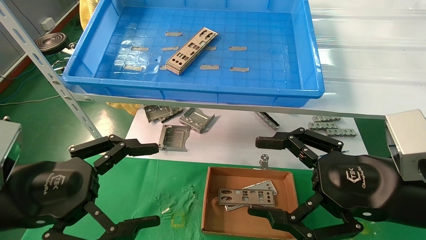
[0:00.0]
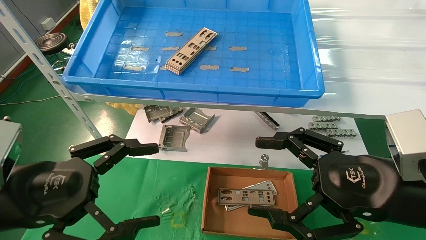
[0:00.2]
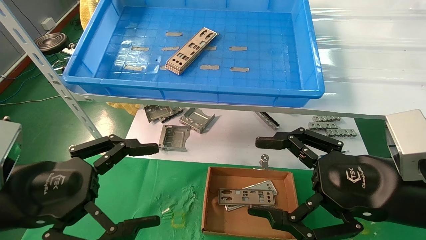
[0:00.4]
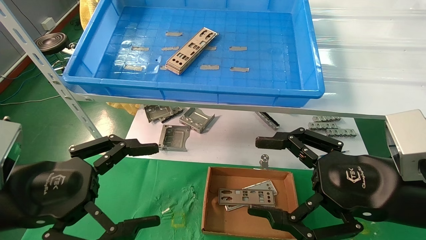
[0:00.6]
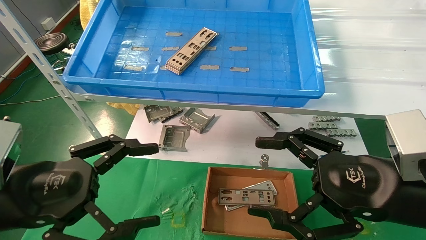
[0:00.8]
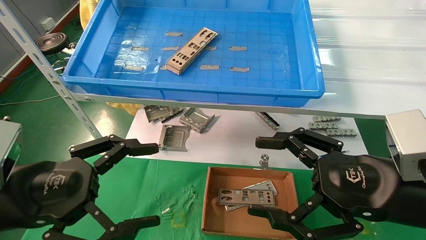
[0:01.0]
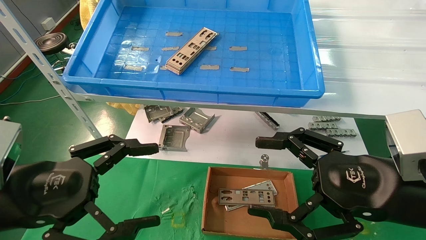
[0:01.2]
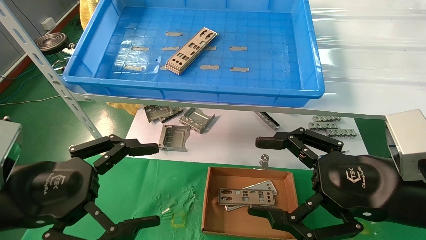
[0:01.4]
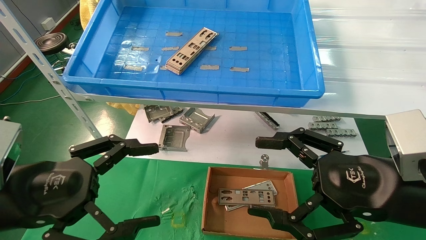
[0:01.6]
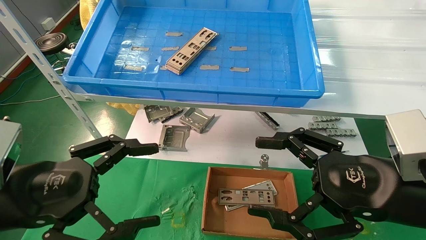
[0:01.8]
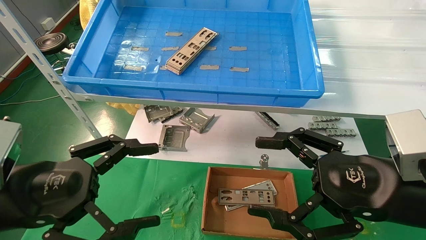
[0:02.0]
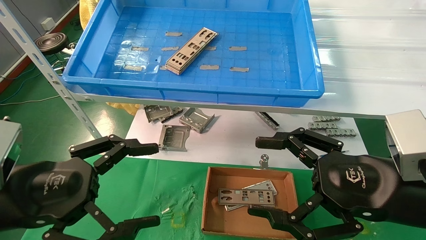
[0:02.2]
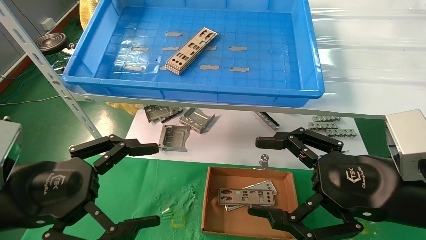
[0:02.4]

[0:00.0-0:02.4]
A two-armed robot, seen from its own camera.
Task of the whole recording: pick up the parts on the tray and put them in the cardboard box.
0:00.0 to 0:02.4: The two grippers keep their place.
